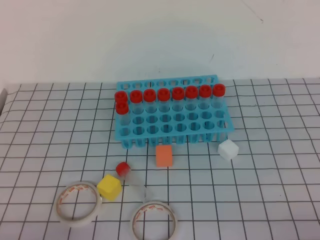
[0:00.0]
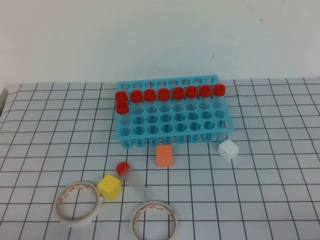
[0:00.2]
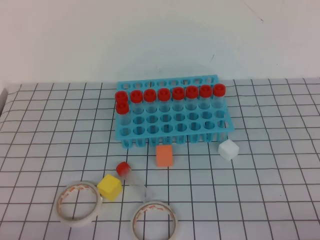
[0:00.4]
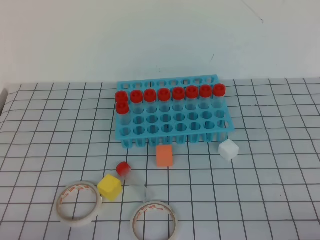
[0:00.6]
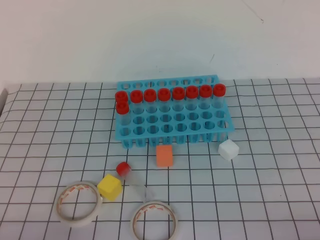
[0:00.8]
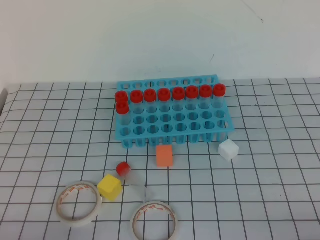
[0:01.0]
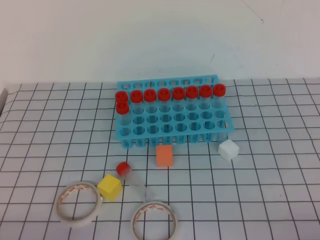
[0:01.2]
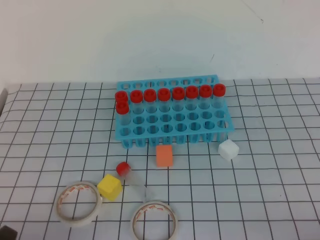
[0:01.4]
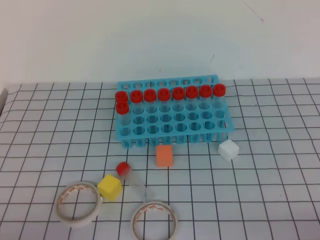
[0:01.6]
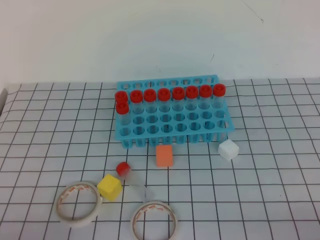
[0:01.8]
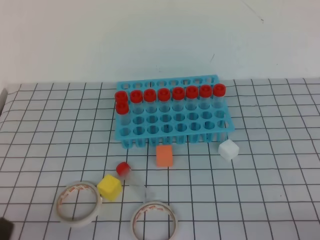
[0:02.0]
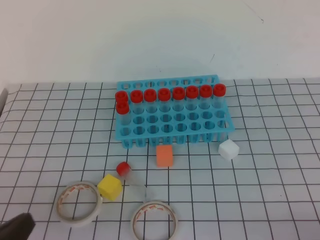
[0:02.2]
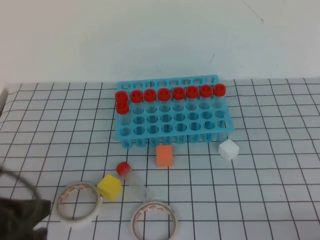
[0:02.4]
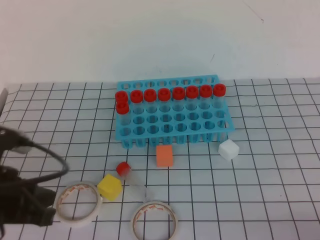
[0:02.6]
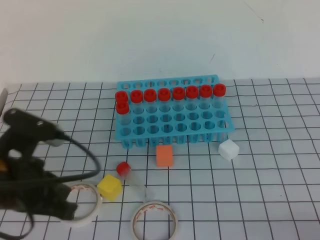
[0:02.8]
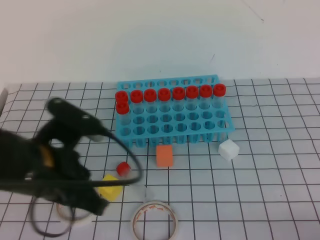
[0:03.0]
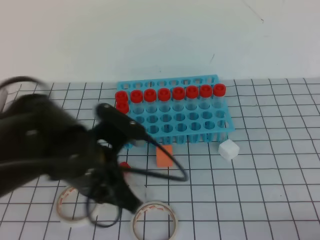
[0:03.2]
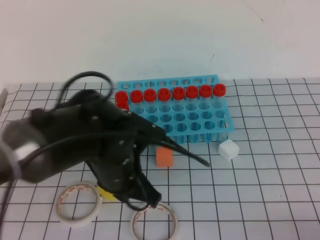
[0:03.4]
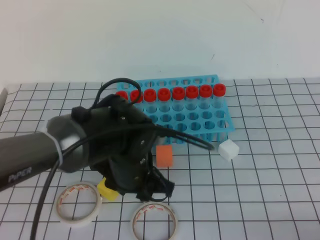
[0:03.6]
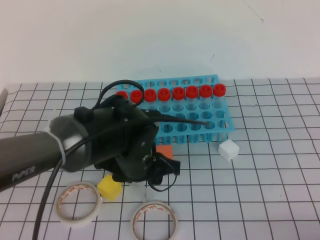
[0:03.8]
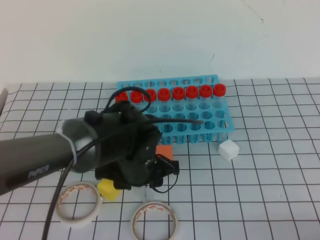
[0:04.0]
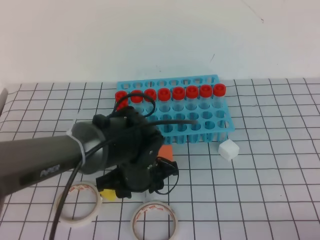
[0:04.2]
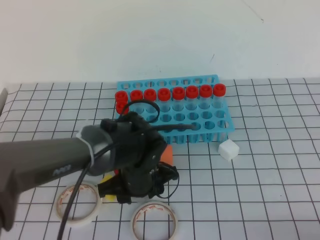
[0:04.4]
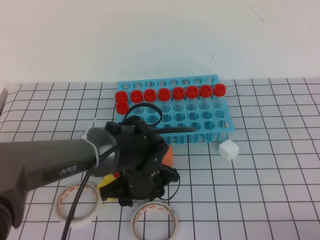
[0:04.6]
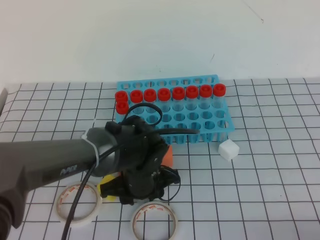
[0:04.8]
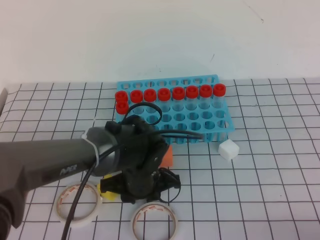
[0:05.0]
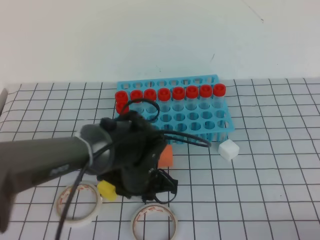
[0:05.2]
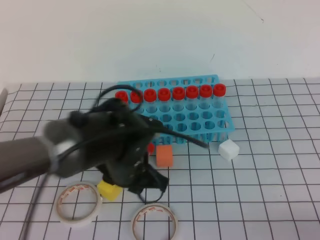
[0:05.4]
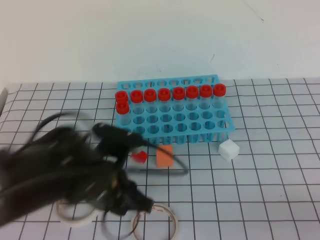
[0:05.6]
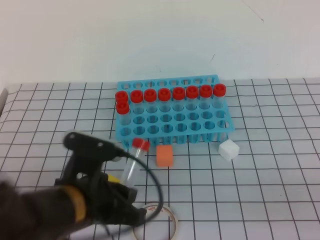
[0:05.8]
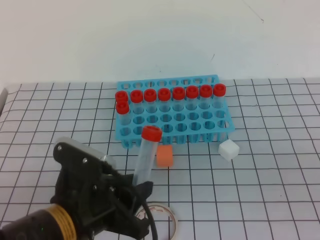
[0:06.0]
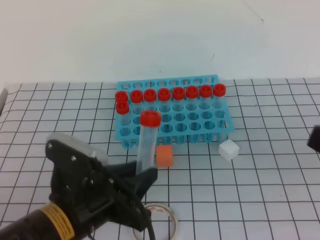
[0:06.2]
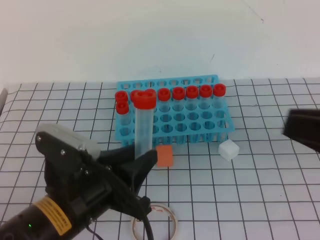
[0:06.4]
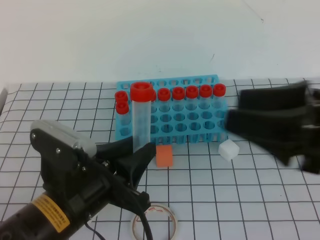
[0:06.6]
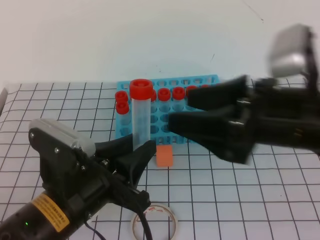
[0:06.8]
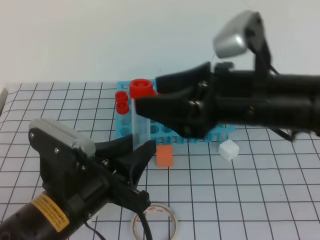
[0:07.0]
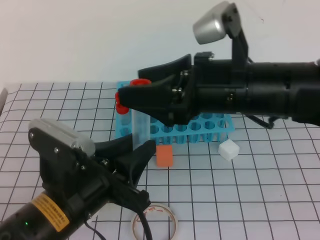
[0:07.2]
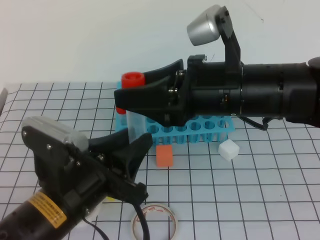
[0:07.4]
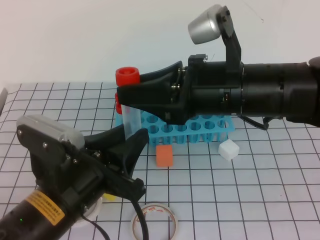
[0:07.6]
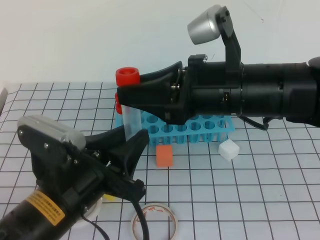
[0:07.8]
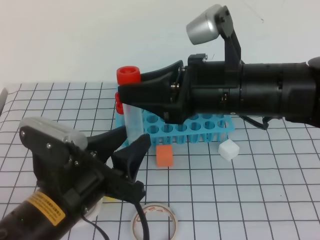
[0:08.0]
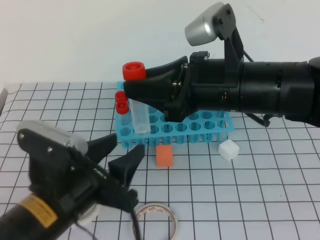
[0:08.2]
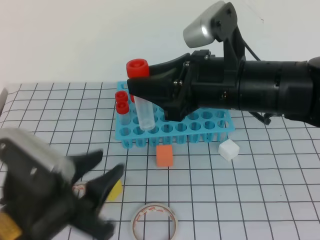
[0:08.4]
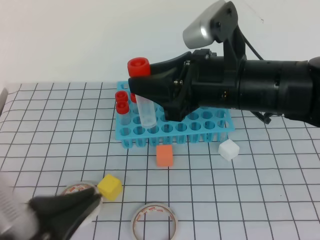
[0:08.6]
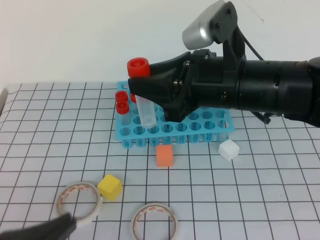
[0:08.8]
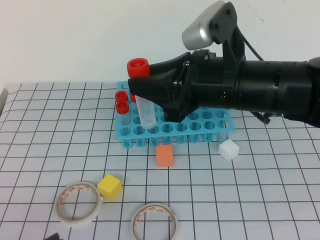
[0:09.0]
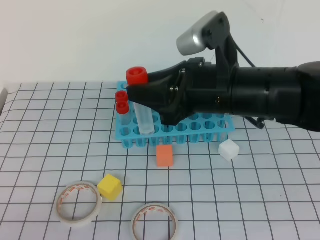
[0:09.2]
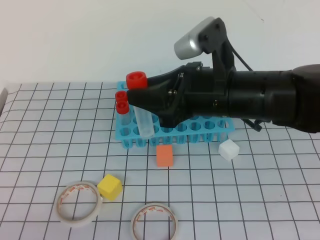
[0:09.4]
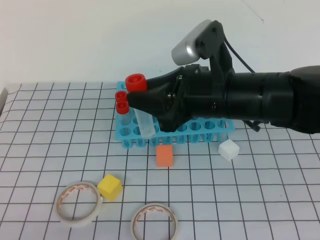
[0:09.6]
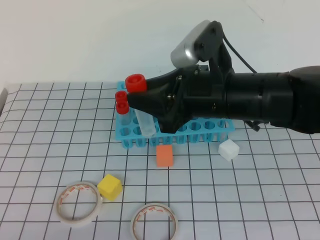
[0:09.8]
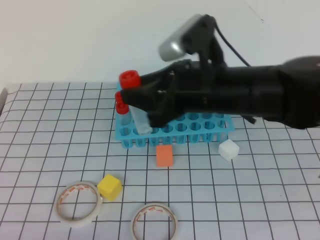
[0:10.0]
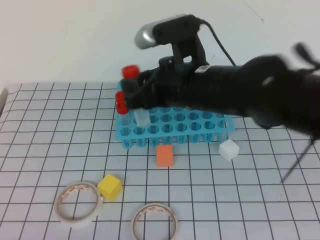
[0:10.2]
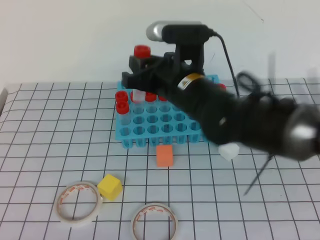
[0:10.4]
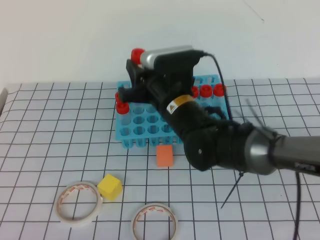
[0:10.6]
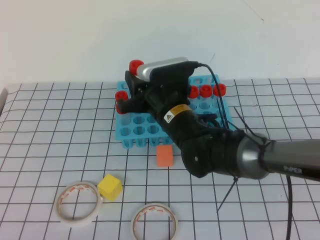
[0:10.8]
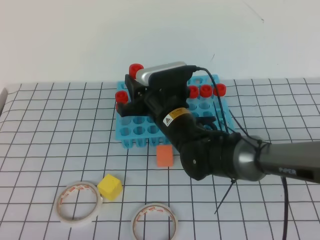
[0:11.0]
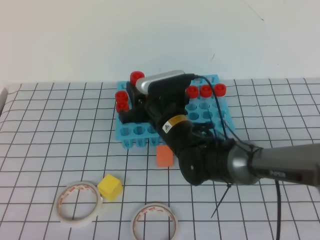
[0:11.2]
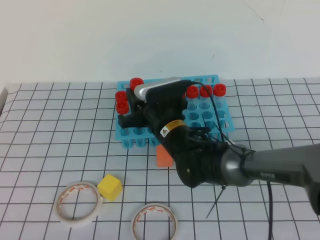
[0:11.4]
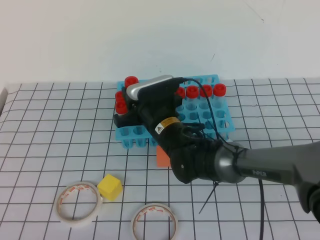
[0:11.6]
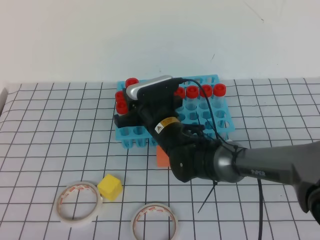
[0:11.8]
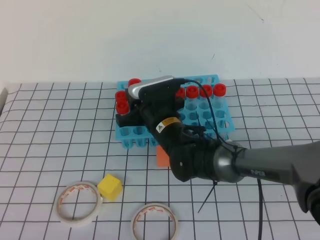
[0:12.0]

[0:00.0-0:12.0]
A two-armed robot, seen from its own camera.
0:01.6 to 0:03.0: The left gripper goes approximately 20 cm forward, upward and to the right.
0:03.0 to 0:04.4: The left gripper goes about 20 cm downward, to the right and forward, and opens up.
0:04.4 to 0:06.0: The right gripper travels upward by some 10 cm, while the left gripper goes about 15 cm backward, to the left and upward, and closes.
0:06.0 to 0:07.6: The right gripper is displaced to the left and forward by roughly 25 cm, and opens its fingers.
0:07.6 to 0:09.0: The left gripper moves backward and to the left, roughly 15 cm, and closes up.
0:09.0 to 0:10.4: The right gripper goes approximately 10 cm forward and to the left. The left gripper moves about 5 cm.
0:10.4 to 0:12.0: The right gripper travels downward by some 10 cm.

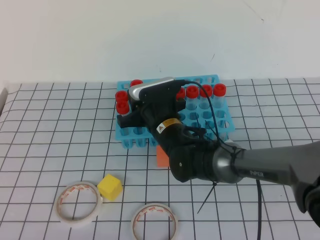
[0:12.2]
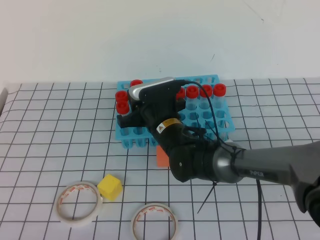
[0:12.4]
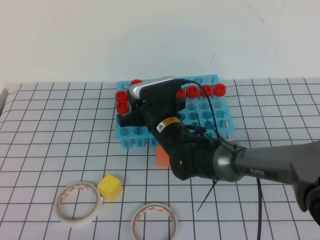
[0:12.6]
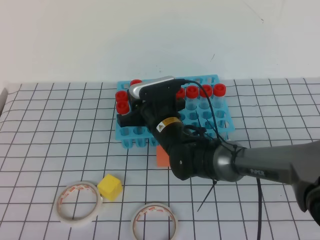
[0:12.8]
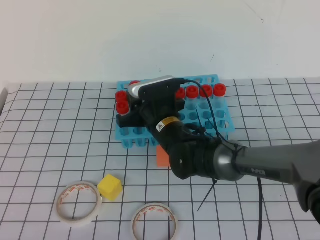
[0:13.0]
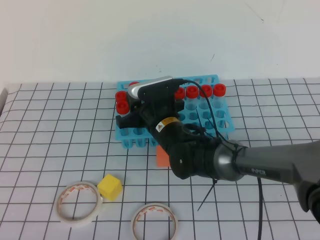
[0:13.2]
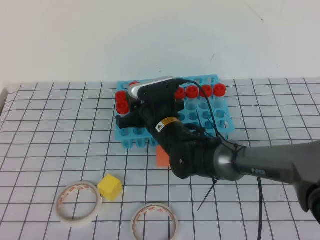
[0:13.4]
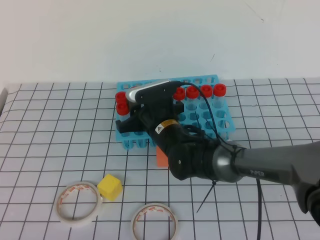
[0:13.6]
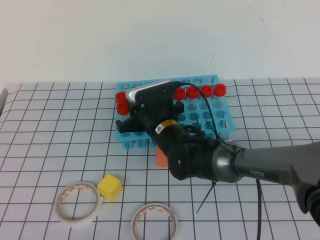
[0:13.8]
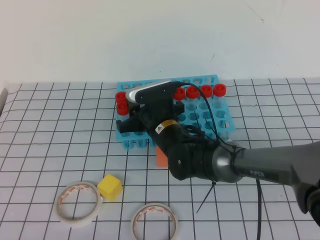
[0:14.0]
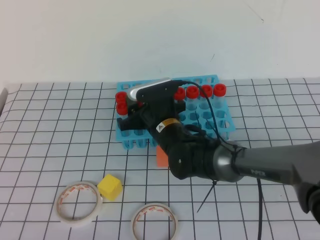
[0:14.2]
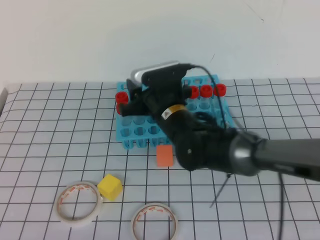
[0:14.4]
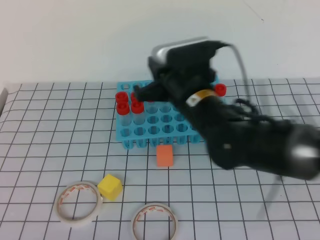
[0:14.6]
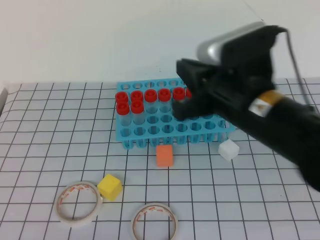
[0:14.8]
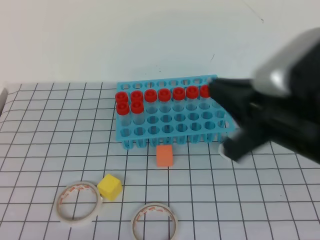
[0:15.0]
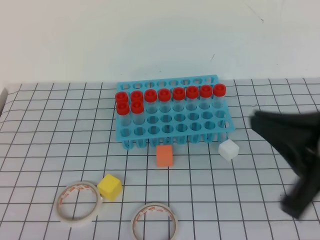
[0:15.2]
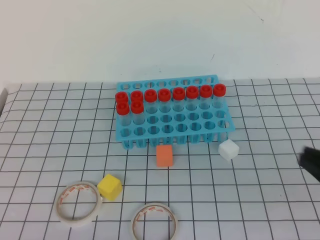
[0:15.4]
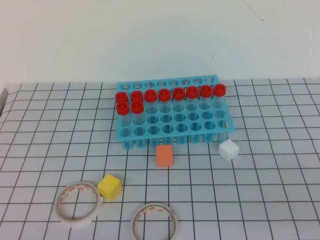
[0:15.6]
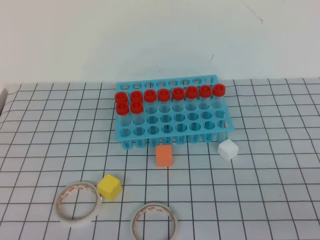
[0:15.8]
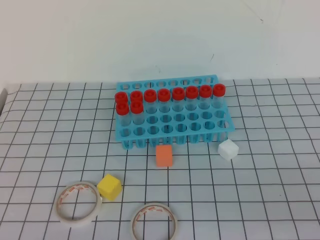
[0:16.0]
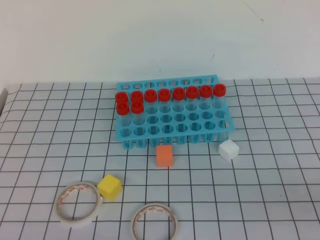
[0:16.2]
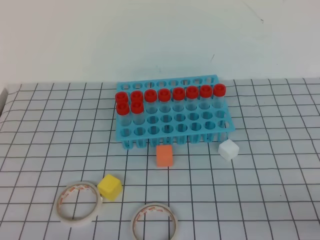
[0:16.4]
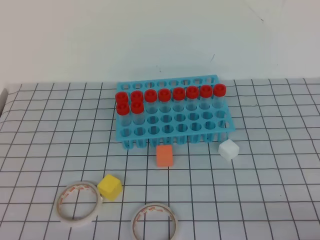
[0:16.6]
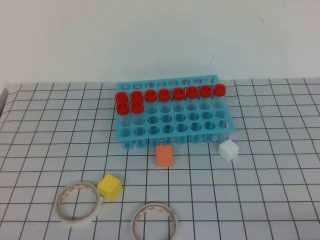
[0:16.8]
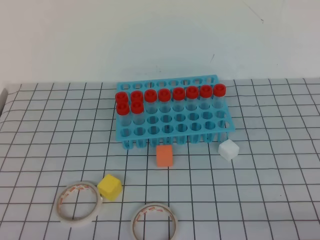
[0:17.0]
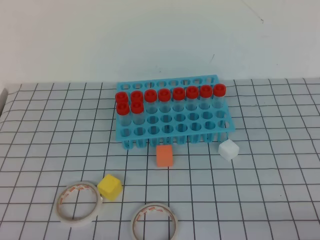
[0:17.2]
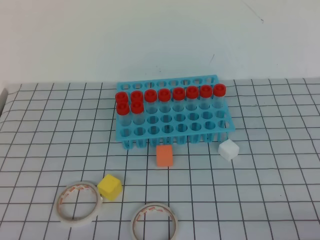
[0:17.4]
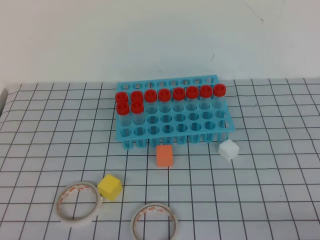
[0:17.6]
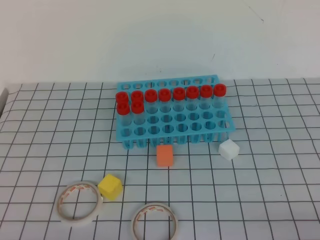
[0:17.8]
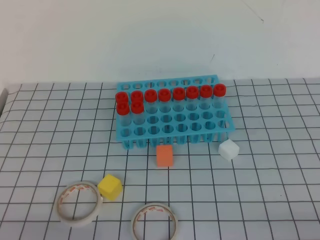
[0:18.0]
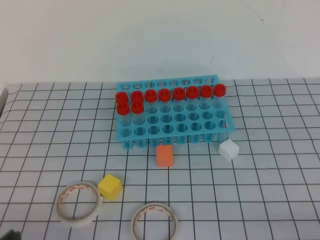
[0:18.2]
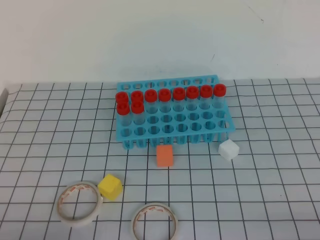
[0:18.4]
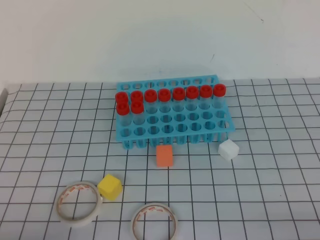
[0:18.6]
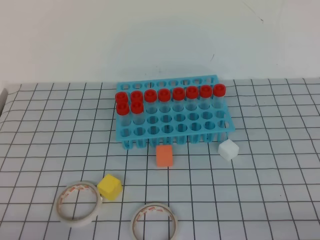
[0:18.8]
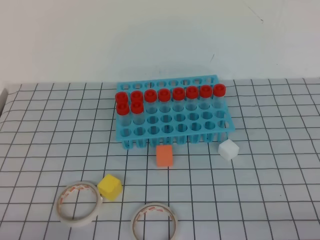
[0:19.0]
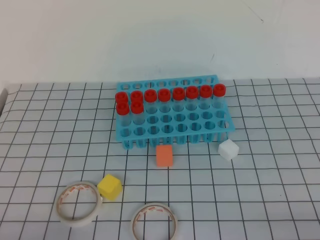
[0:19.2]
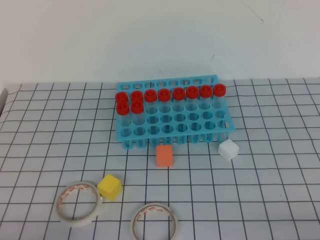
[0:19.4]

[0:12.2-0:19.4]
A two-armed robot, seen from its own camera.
0:12.2 to 0:13.6: There are only small adjustments of the grippers.
0:13.6 to 0:15.0: The right gripper travels upward, backward and to the right by about 30 cm, and closes its fingers.
0:15.0 to 0:16.6: The right gripper goes approximately 30 cm to the right, downward and backward.
